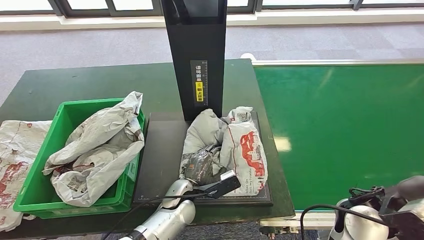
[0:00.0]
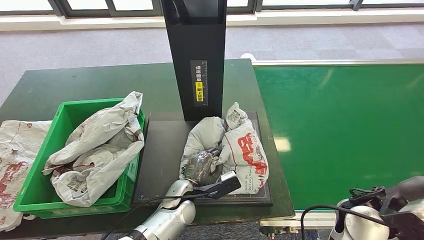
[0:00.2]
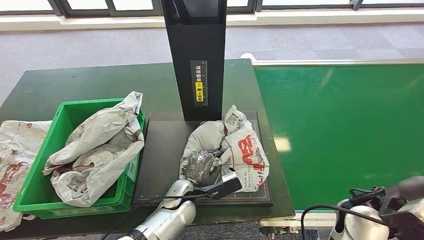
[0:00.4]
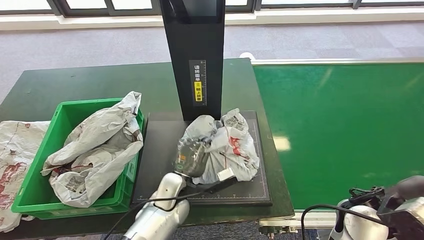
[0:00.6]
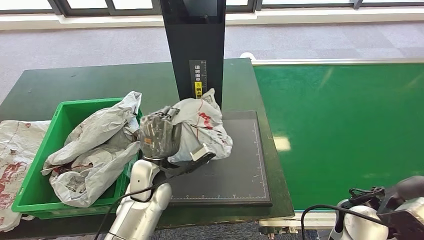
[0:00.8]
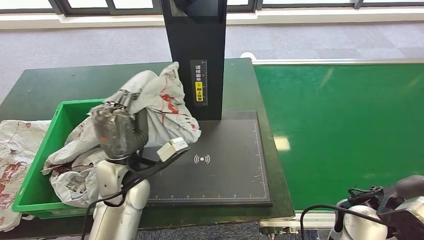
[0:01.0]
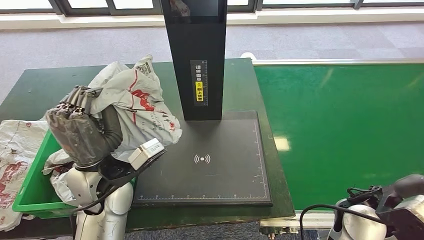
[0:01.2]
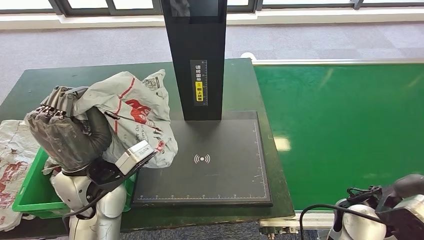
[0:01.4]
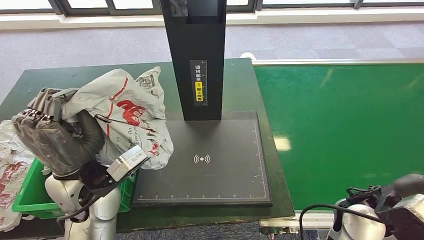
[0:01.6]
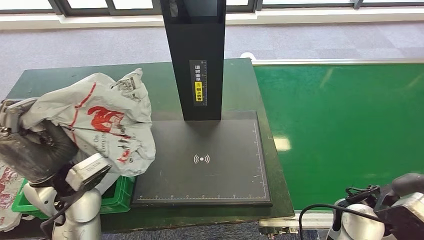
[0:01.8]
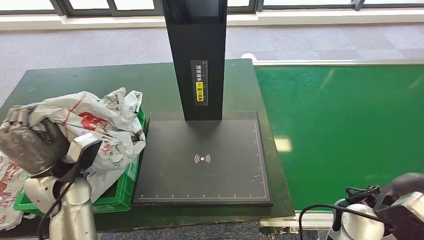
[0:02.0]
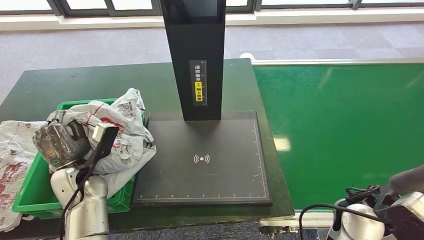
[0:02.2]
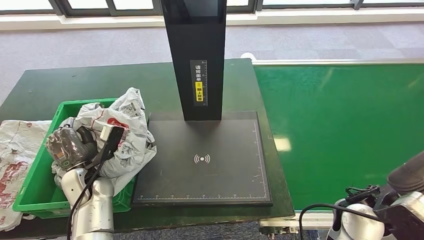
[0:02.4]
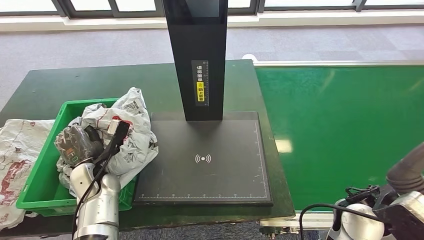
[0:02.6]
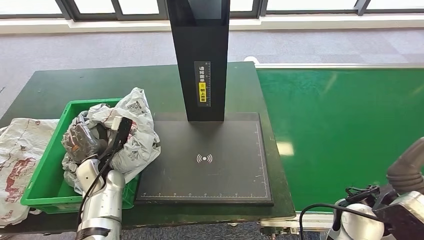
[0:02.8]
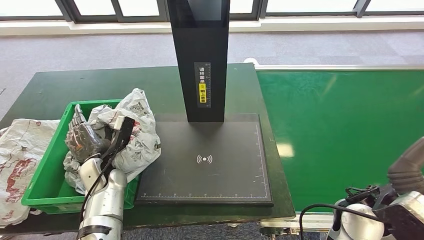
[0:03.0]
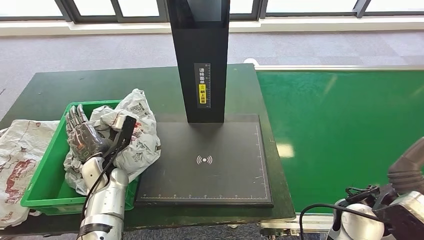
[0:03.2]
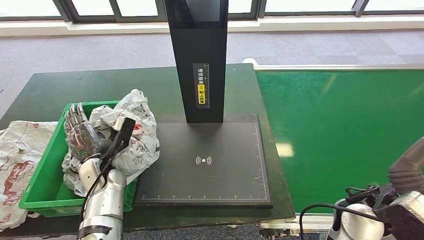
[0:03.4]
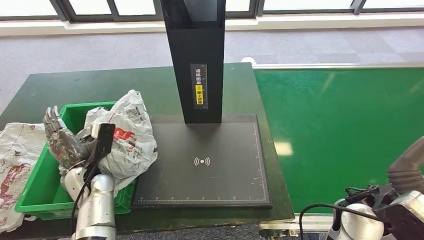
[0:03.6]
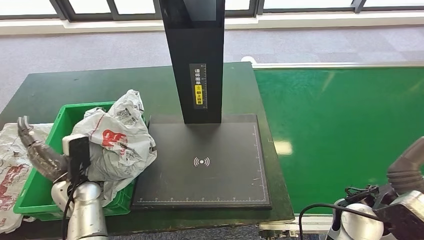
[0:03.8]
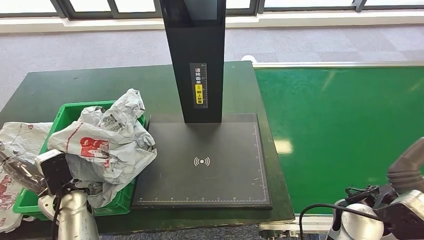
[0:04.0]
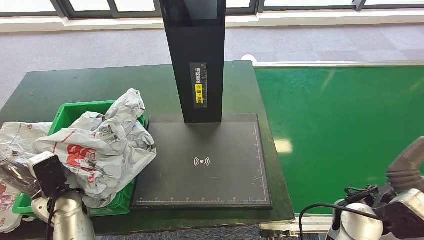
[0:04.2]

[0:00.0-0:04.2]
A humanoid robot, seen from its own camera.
Step, 0:01.4 to 0:04.2: Place the parcel into the delivery box.

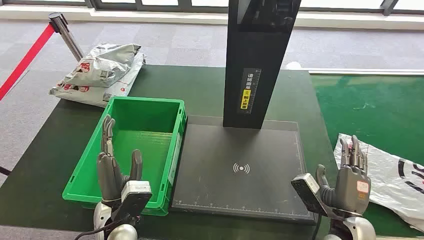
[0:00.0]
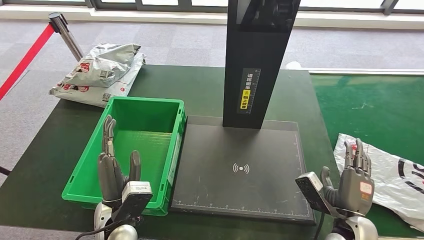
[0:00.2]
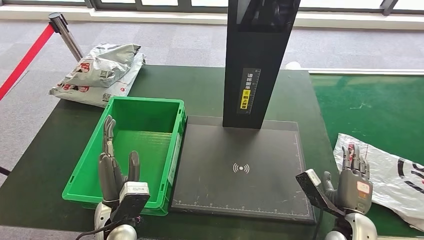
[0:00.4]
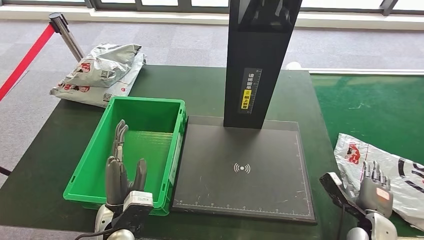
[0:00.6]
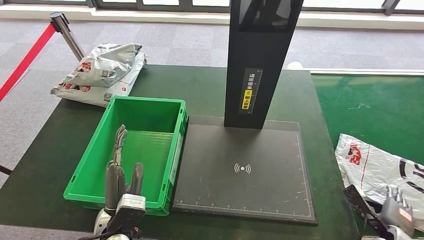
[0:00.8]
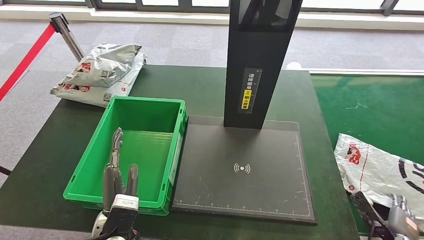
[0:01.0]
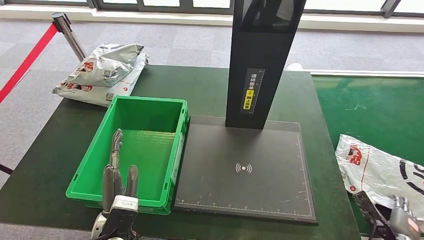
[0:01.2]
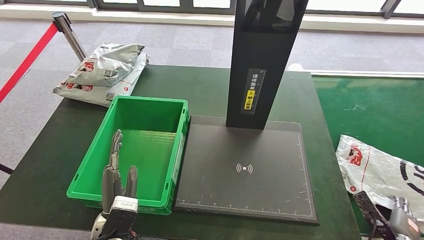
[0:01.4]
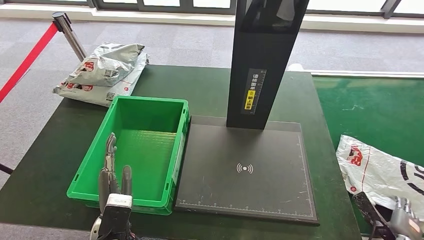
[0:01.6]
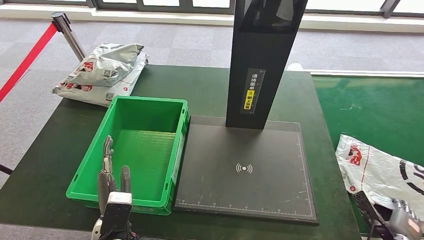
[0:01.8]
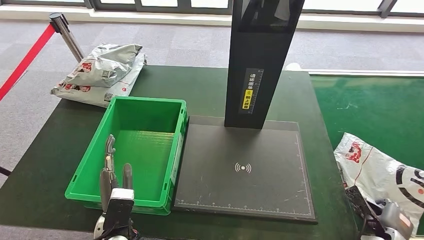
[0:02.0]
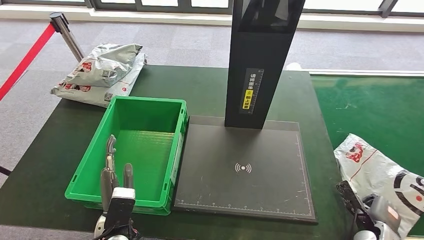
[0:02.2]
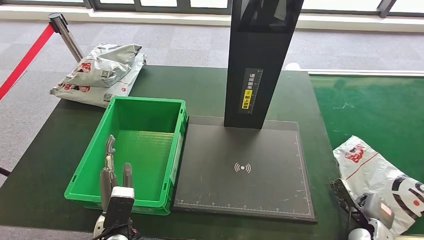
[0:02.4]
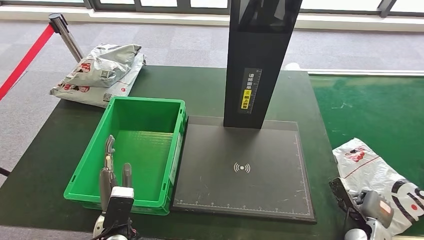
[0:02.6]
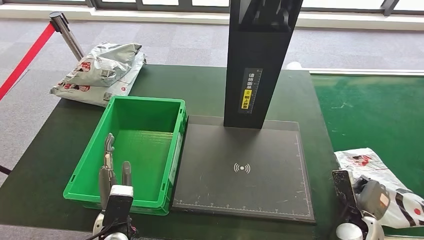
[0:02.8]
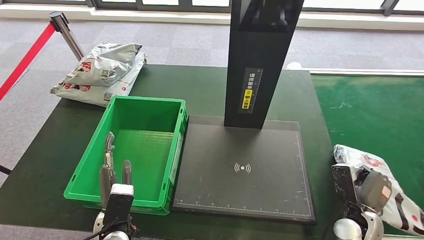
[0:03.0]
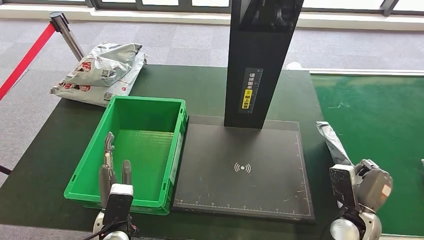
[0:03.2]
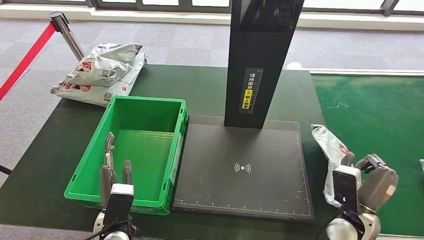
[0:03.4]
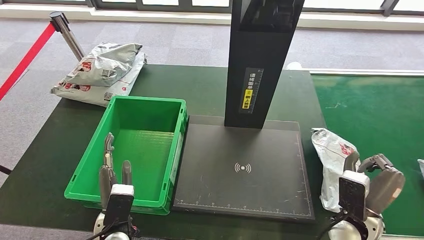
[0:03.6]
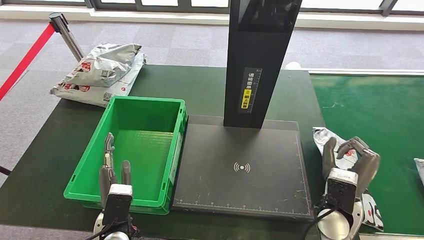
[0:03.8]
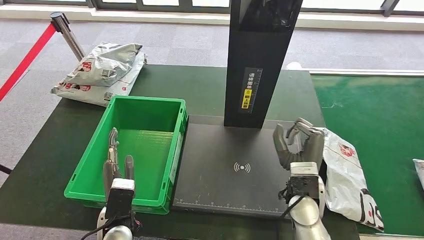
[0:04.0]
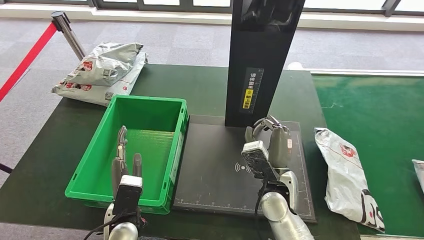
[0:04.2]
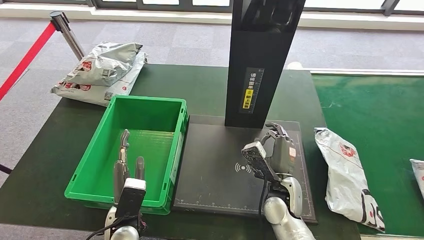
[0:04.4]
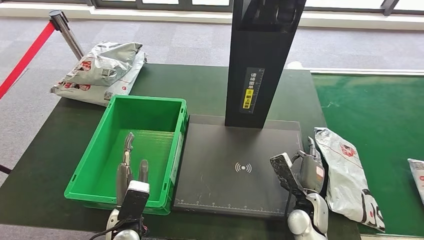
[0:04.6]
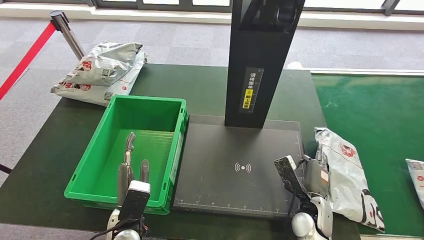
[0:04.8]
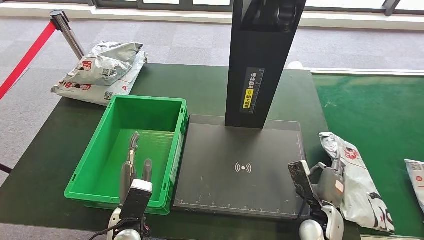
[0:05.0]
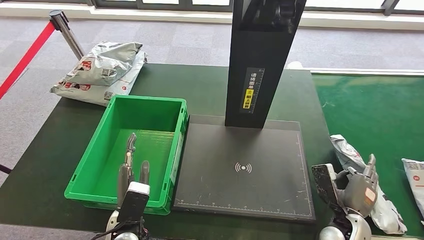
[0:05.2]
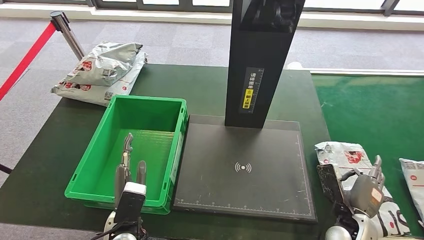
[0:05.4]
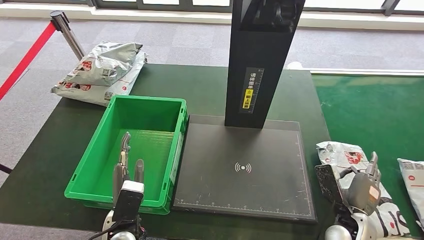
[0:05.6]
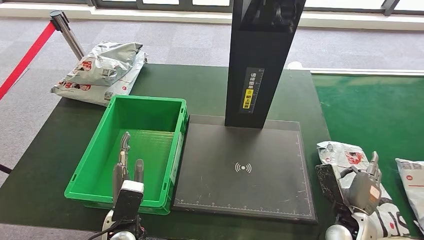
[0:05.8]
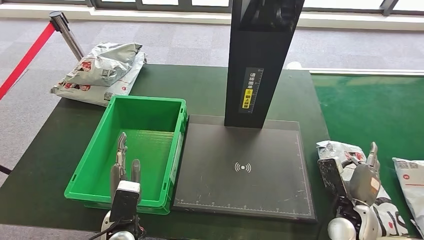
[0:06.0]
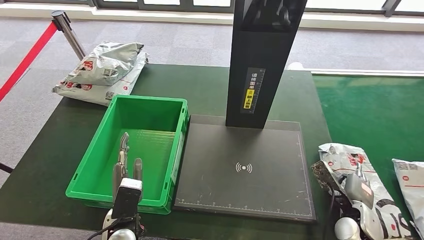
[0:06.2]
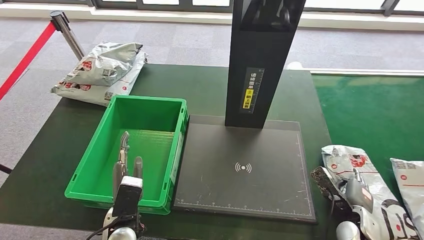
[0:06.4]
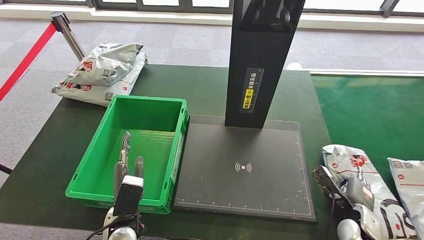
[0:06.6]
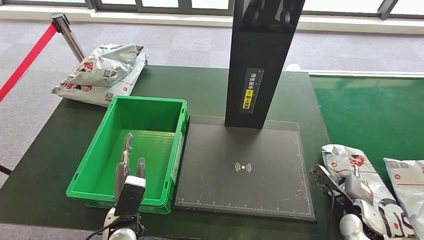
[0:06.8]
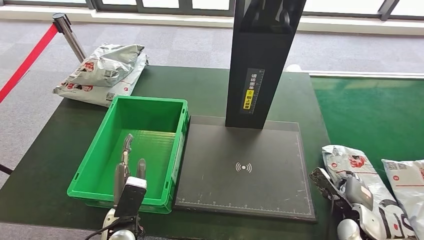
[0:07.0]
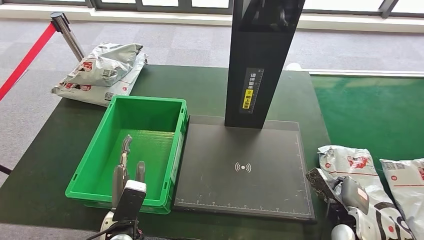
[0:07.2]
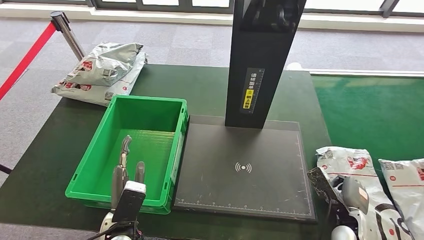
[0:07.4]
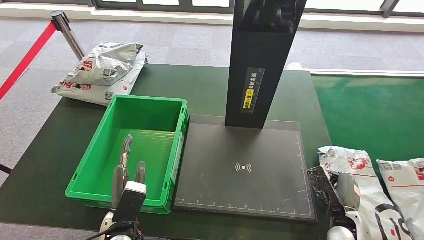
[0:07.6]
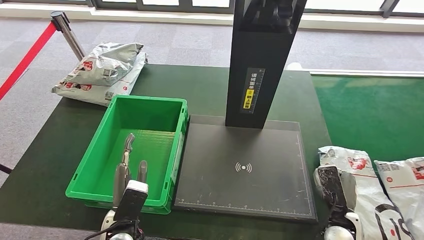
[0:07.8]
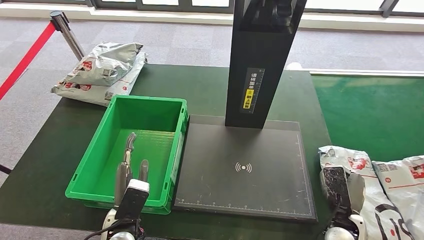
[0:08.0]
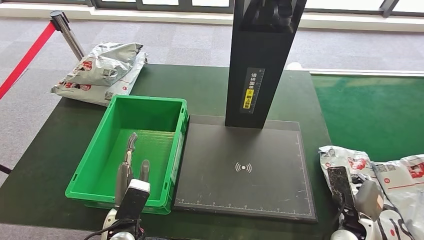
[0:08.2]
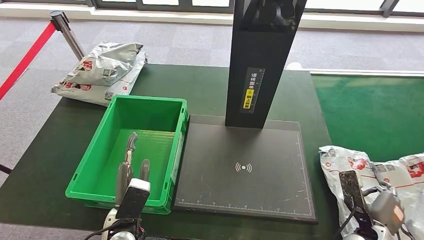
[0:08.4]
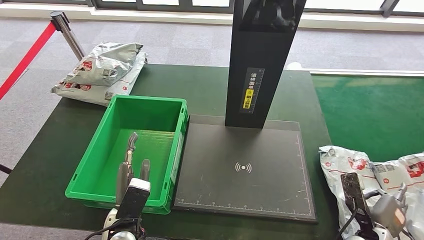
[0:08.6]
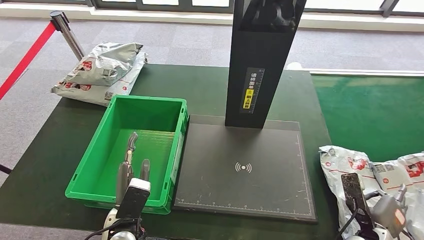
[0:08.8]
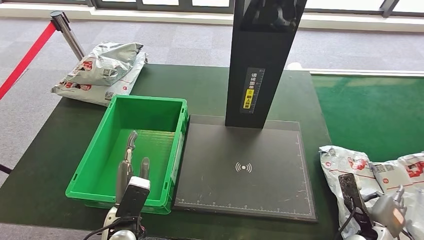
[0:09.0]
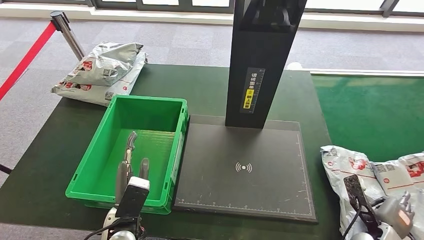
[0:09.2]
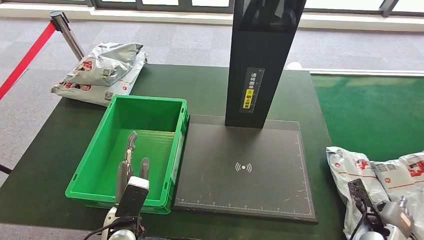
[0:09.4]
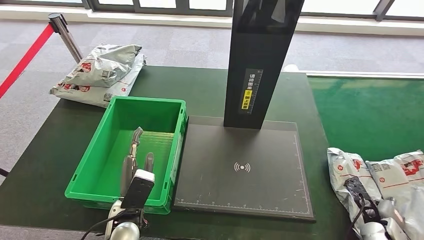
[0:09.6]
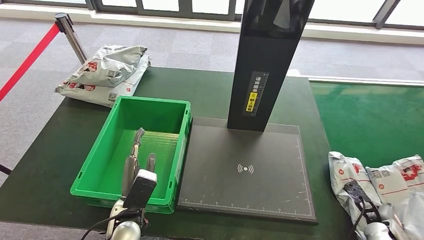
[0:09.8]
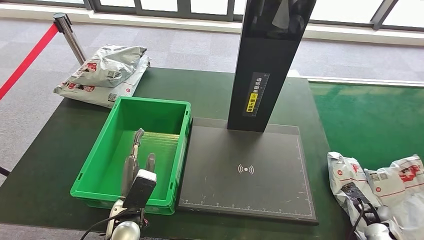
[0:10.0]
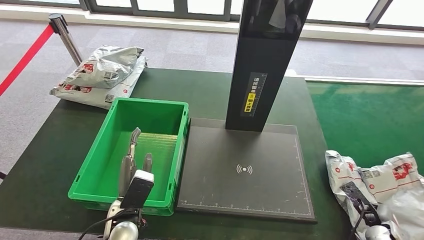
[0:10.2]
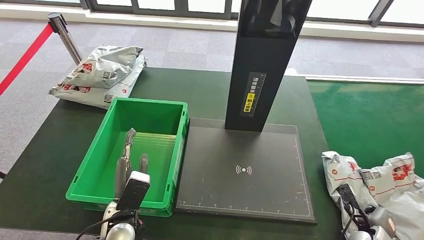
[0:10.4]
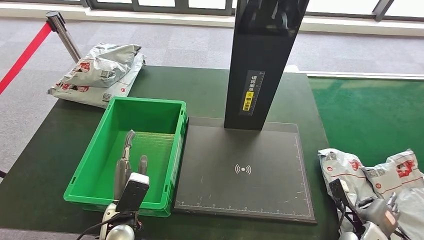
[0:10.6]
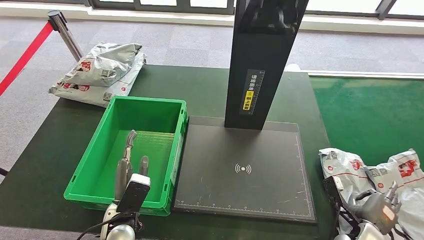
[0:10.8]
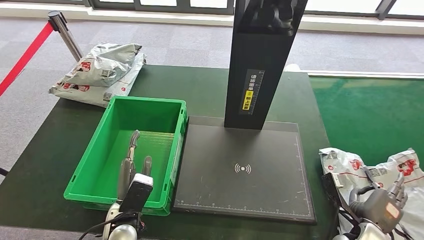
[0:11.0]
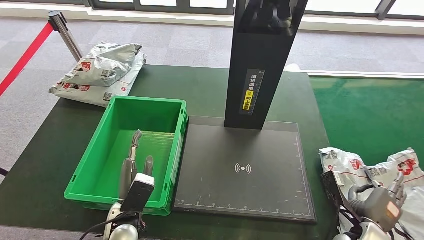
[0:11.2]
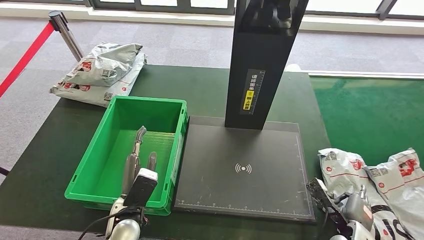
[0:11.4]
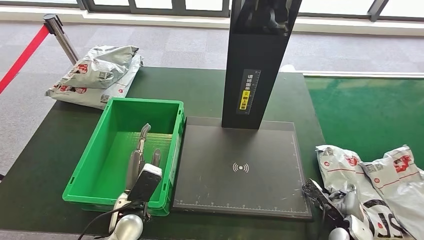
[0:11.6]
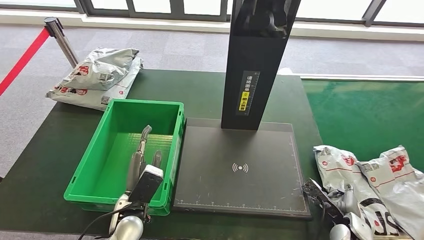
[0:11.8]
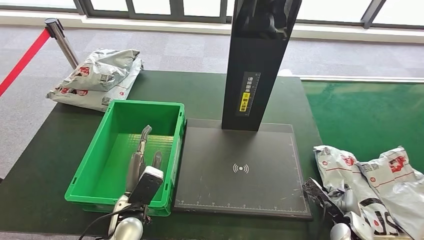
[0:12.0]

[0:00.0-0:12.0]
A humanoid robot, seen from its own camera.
0:03.0 to 0:04.4: The right hand goes some 20 cm to the left.
0:04.4 to 0:06.0: The right hand shifts roughly 15 cm to the right.
0:07.6 to 0:09.0: The right hand heads to the right, covering about 5 cm.

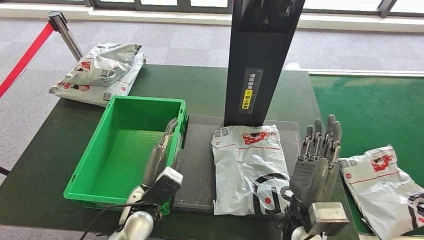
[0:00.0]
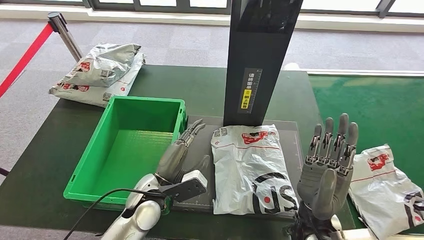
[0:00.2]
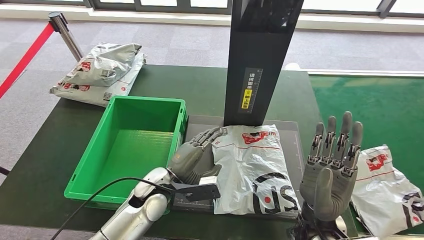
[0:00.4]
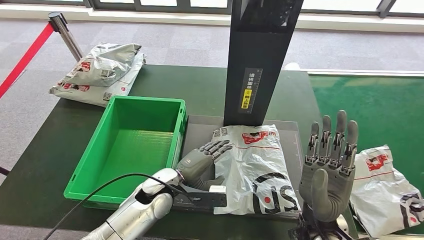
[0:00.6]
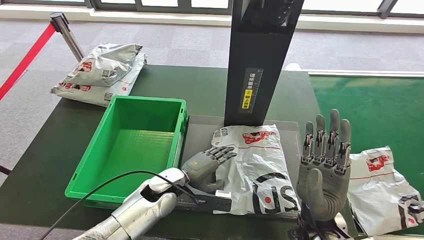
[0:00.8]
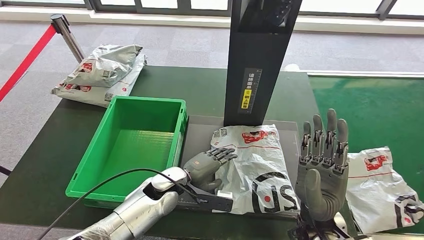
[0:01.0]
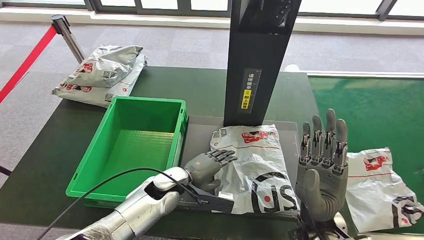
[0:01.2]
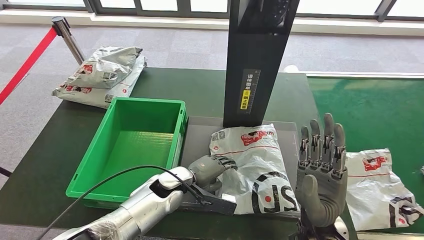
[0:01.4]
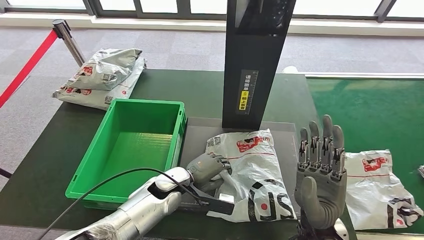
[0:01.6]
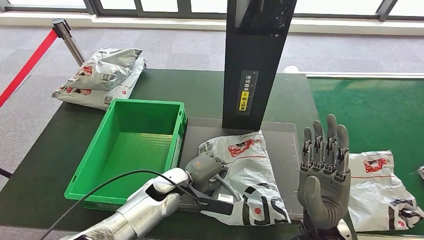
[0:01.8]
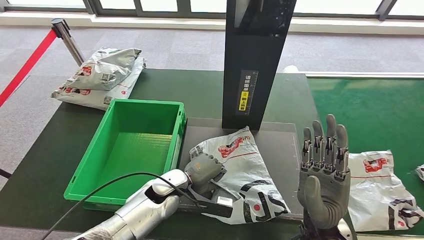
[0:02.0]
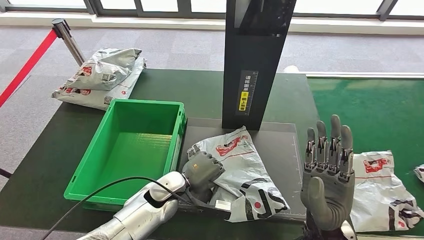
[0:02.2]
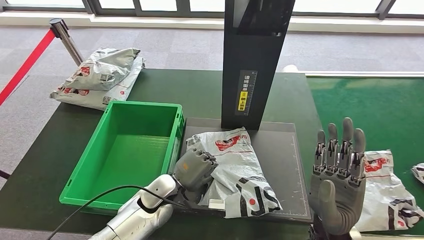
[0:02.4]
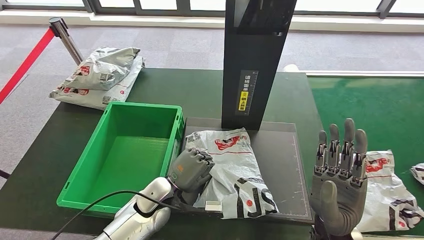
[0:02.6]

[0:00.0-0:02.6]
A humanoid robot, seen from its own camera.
Step, 0:00.0 to 0:01.8: Place the parcel onto the inbound machine.
